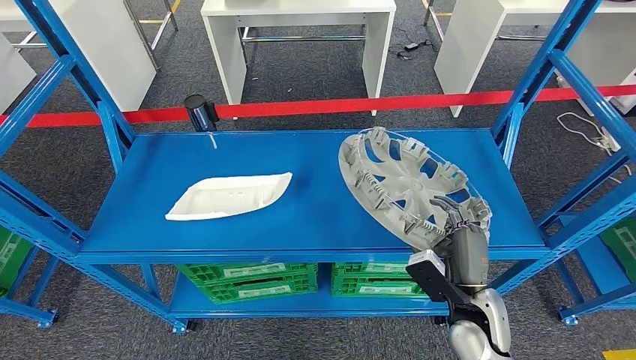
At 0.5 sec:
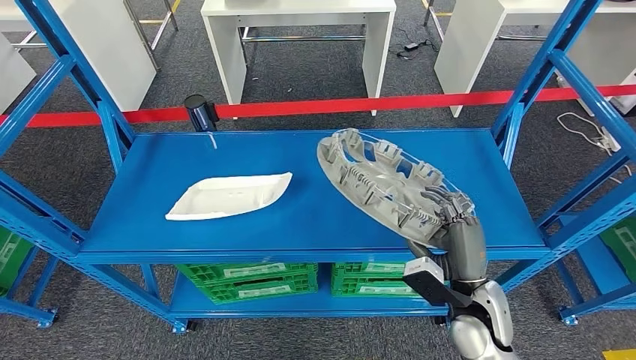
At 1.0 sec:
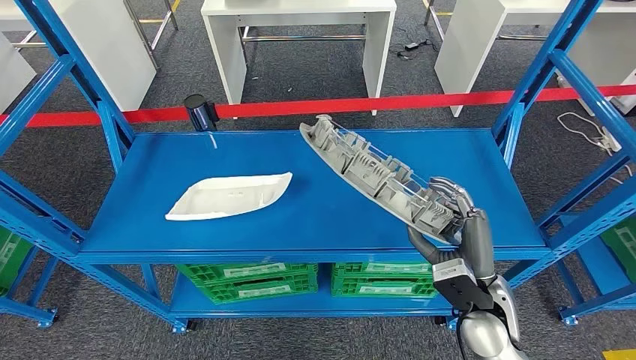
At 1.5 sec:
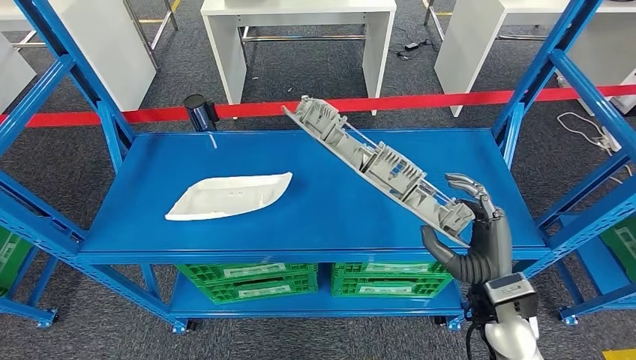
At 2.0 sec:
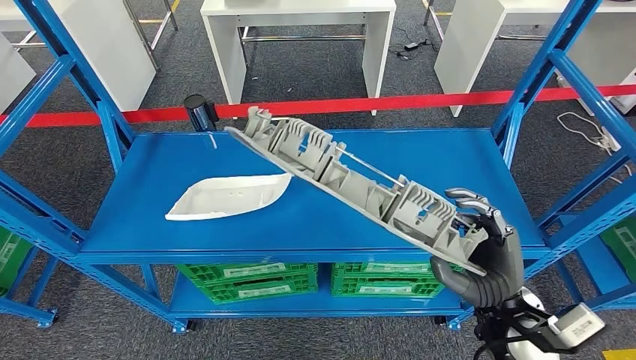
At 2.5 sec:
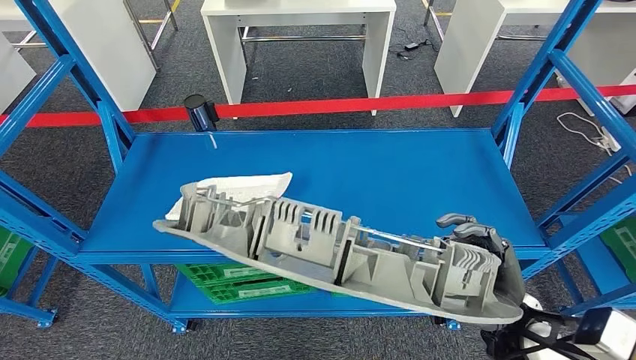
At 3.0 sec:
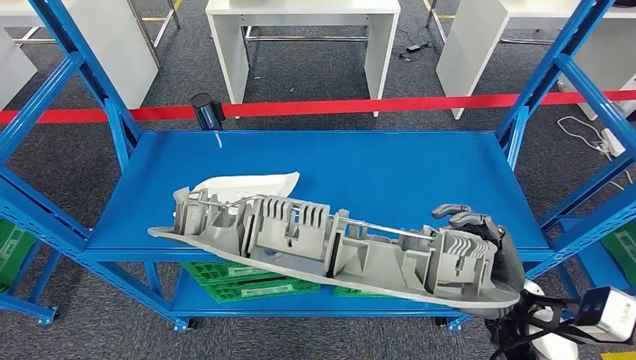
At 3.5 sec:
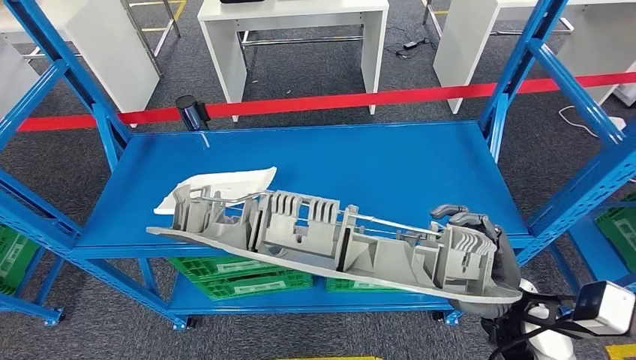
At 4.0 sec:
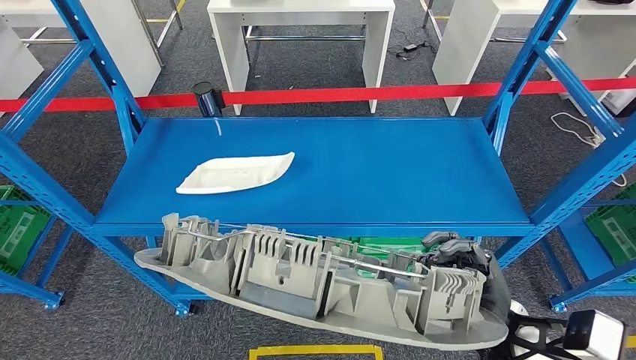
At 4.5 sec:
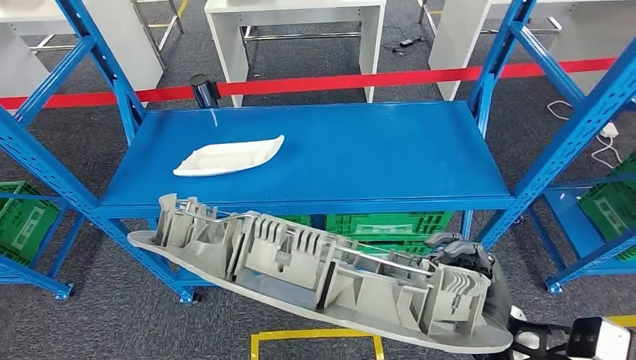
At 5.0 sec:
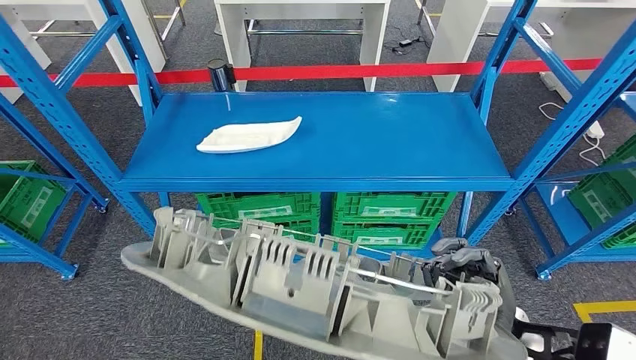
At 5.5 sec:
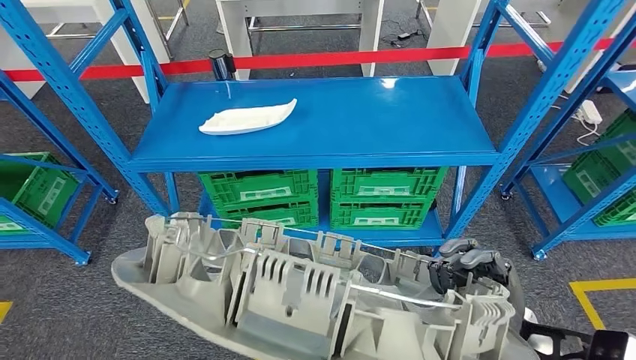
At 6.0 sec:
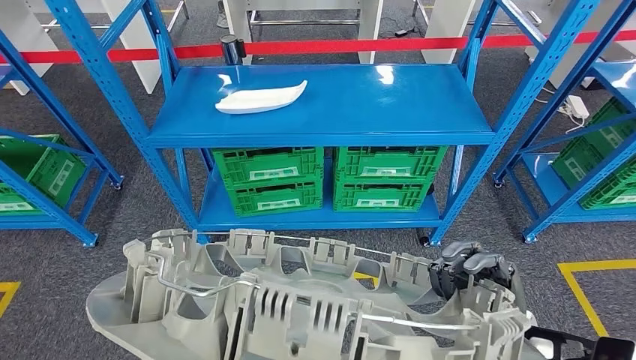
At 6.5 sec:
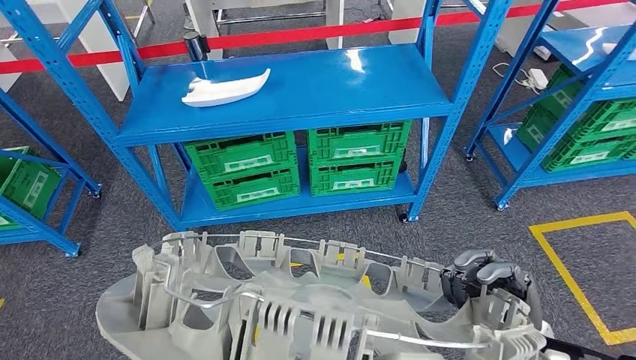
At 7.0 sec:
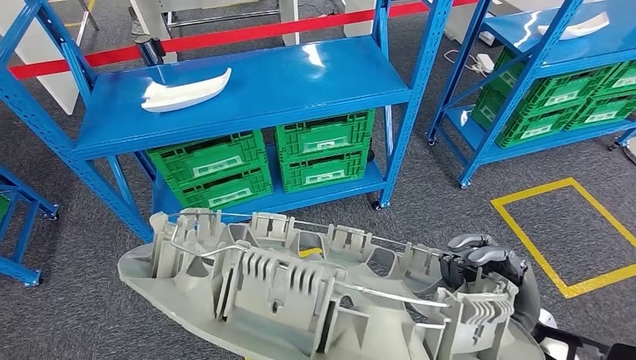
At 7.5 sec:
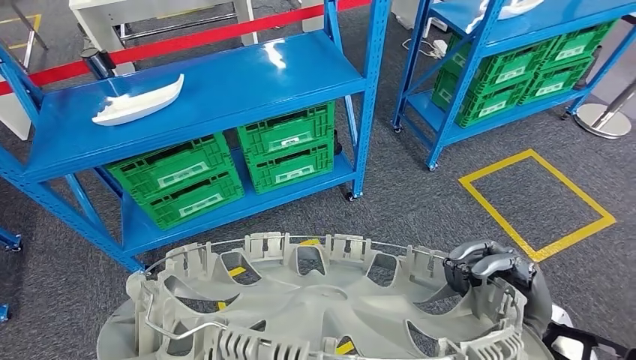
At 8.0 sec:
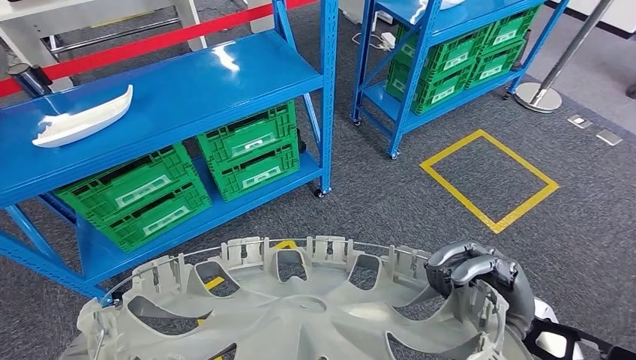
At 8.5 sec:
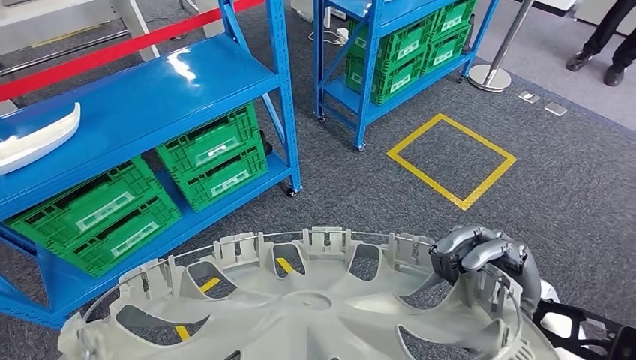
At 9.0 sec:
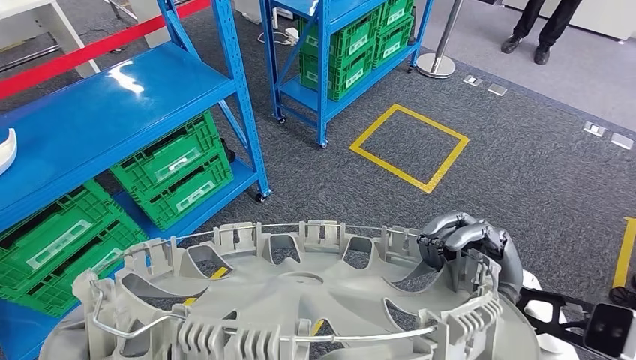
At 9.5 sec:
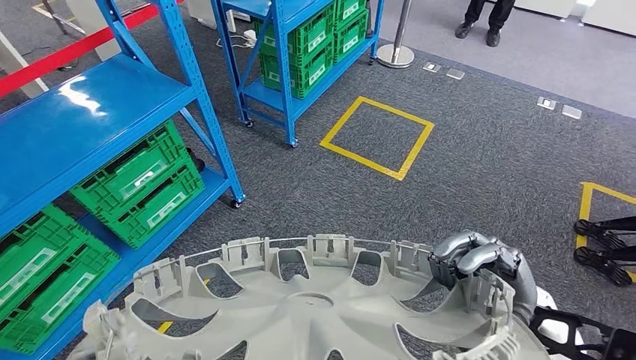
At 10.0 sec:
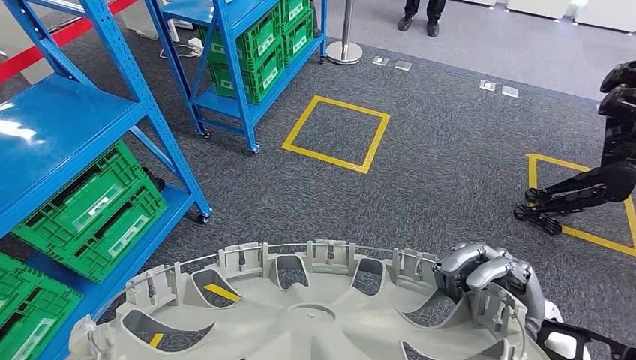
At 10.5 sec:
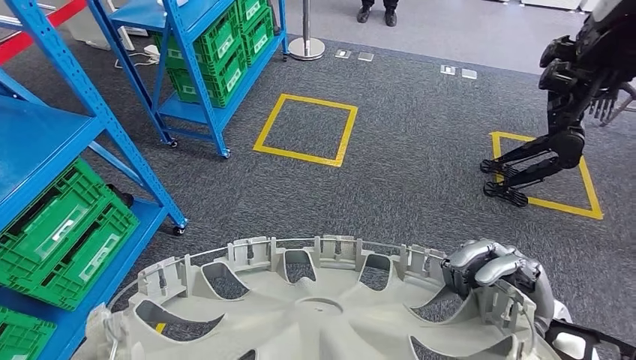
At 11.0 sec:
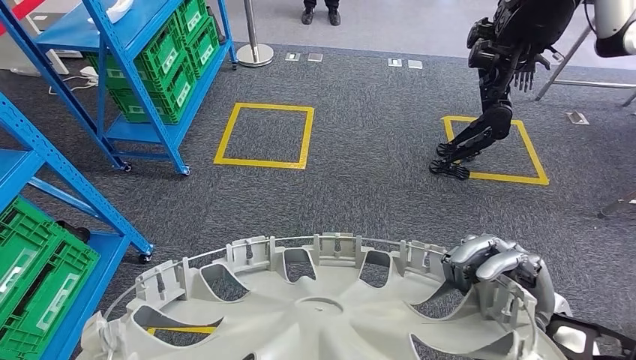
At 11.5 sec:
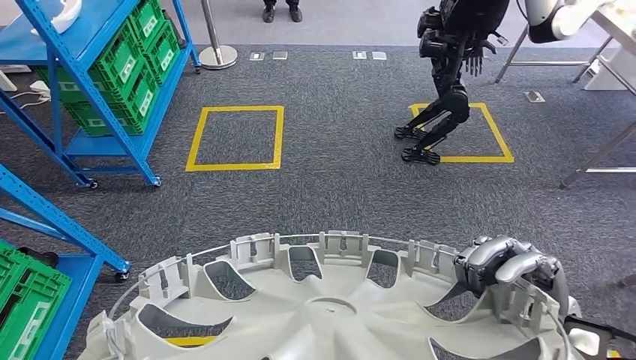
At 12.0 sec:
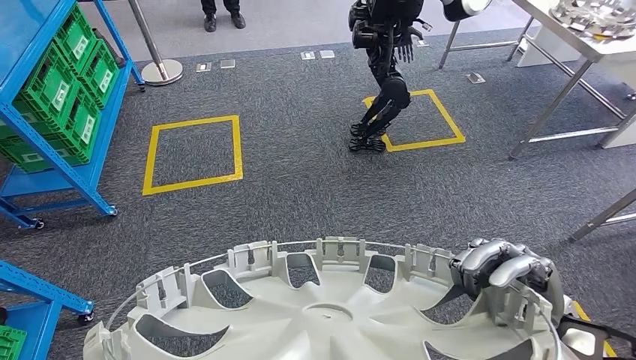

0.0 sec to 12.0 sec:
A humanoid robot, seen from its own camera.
0.0 sec to 2.0 sec: The right hand goes roughly 10 cm upward.

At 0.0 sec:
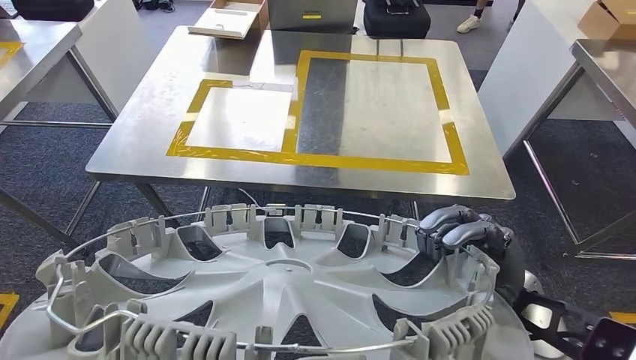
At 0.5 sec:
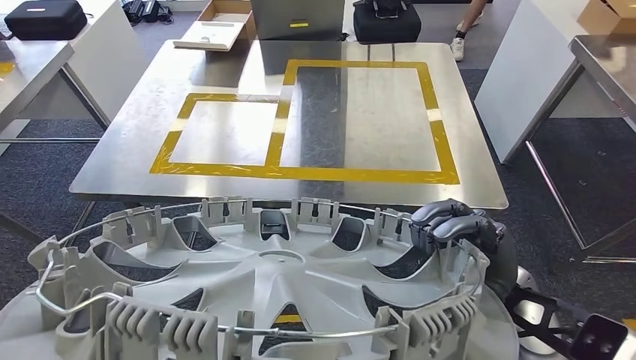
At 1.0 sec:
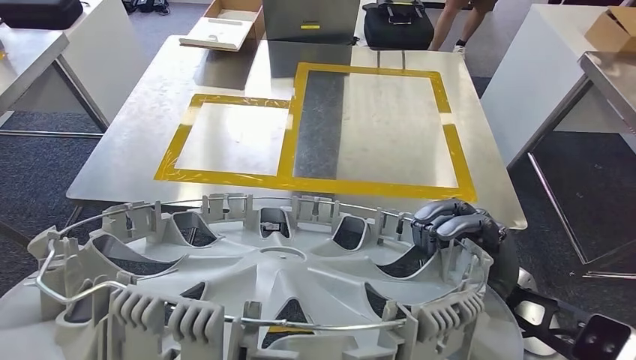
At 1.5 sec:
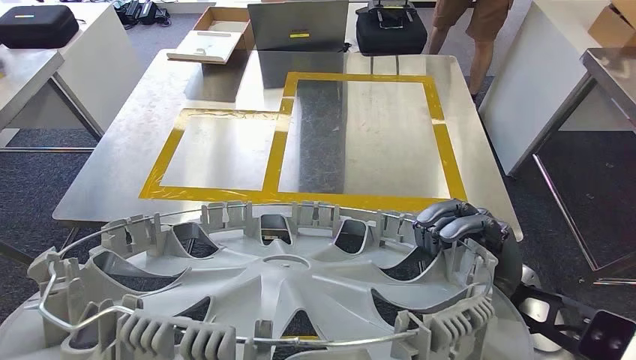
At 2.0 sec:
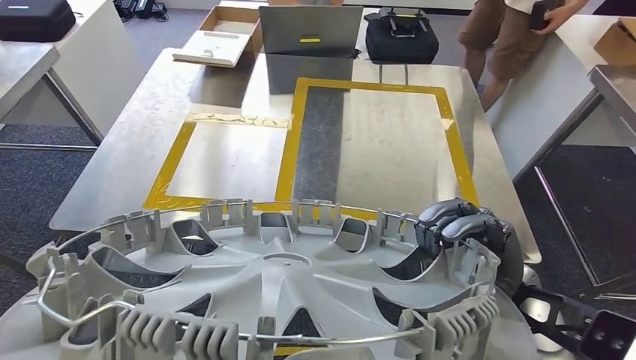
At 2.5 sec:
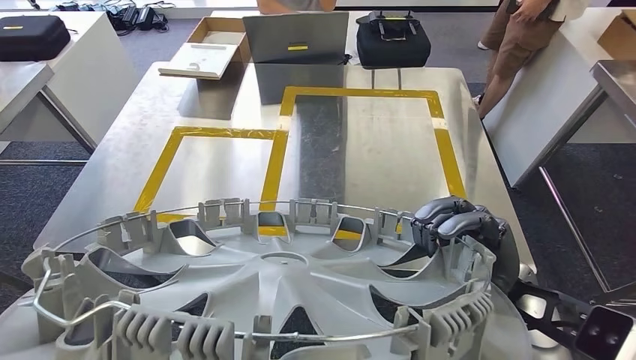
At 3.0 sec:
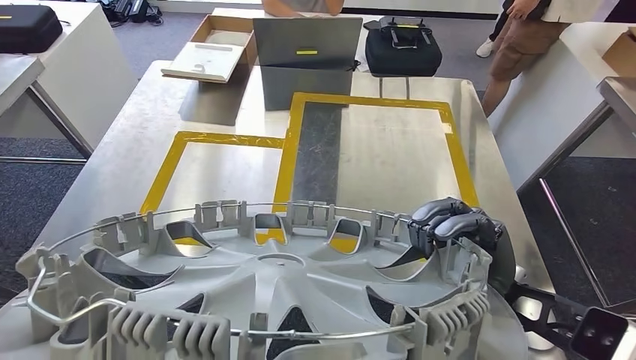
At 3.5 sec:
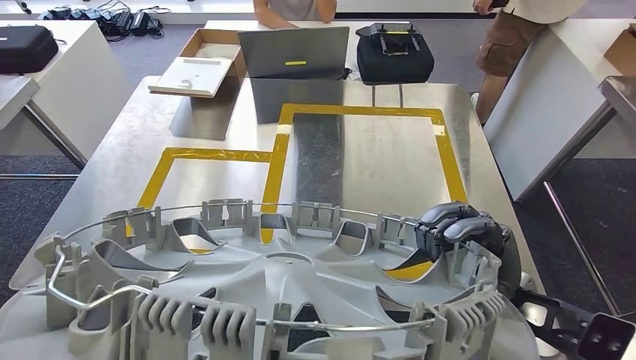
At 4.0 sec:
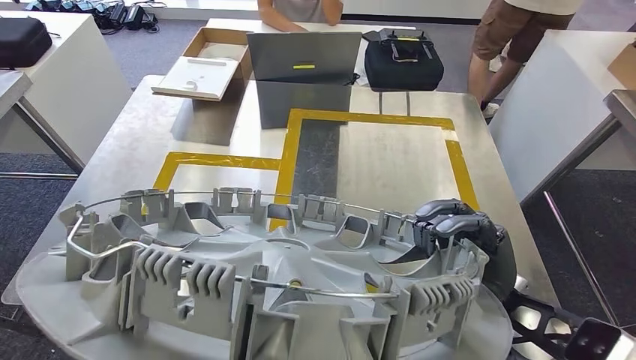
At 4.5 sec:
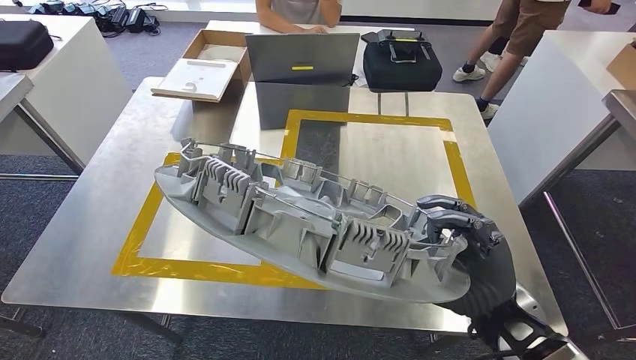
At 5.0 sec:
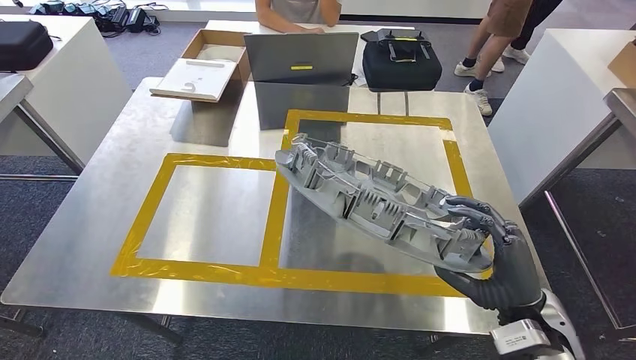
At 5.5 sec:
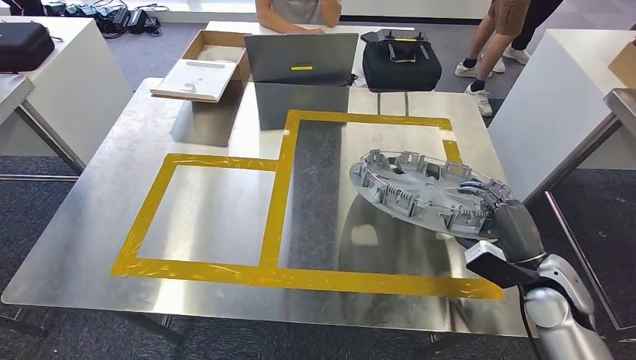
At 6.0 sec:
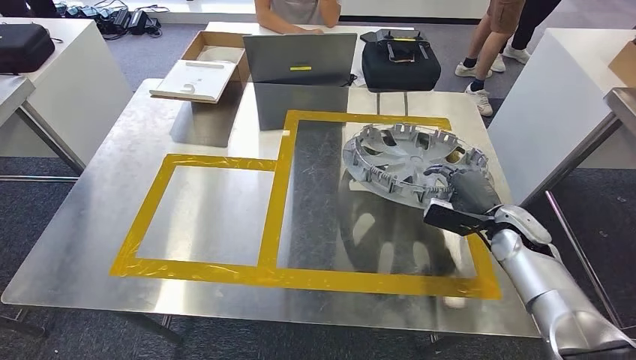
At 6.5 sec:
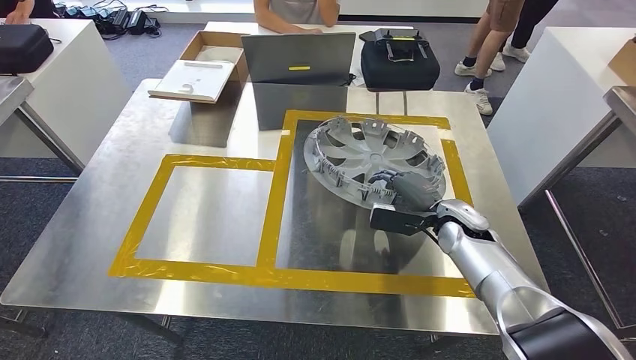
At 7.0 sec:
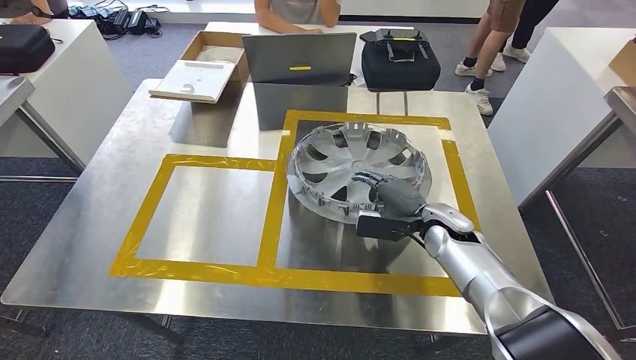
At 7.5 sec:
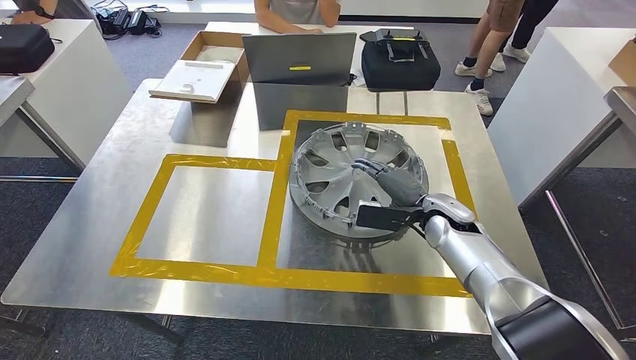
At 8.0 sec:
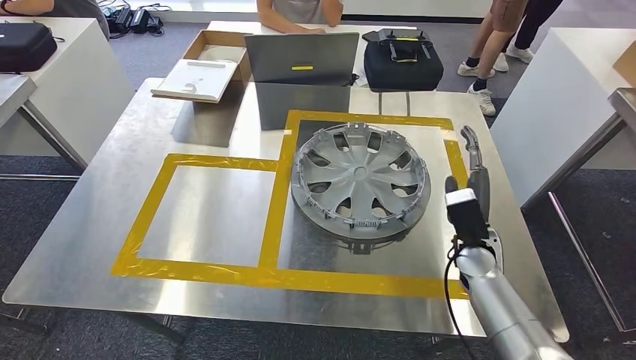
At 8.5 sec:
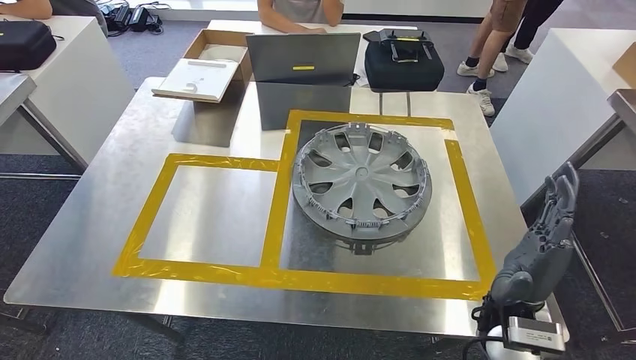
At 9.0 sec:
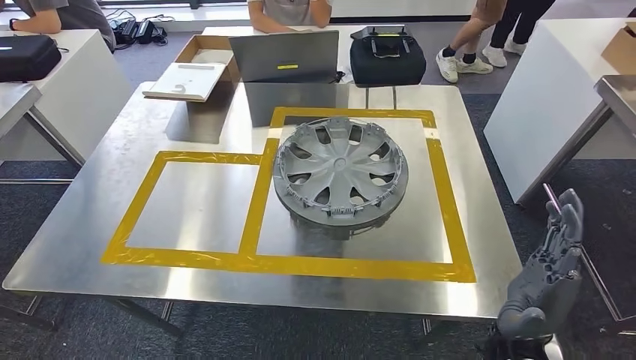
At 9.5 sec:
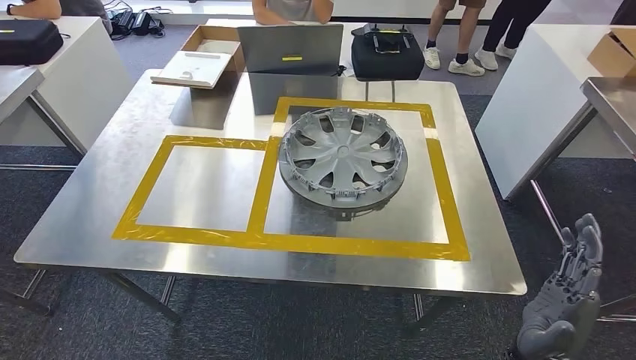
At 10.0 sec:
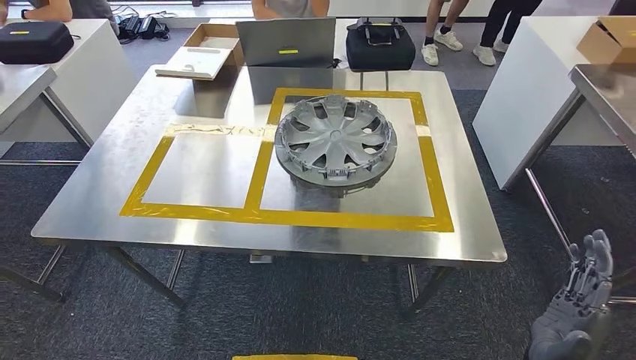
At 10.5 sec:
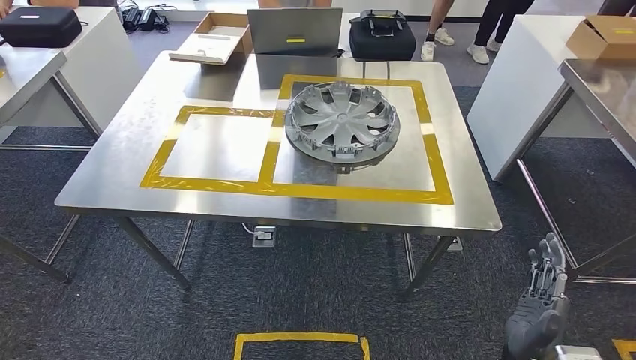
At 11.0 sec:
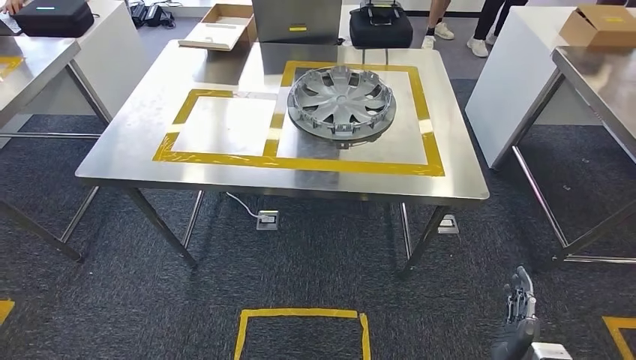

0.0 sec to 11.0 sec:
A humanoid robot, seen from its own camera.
Step, 0.0 sec to 3.0 sec: Move the small parts to the workbench.
Step, 4.0 sec to 8.0 sec: Insert the small parts into the corresponding holes on the workbench.
5.5 sec to 7.5 sec: The right hand moves to the left and forward, some 20 cm.
